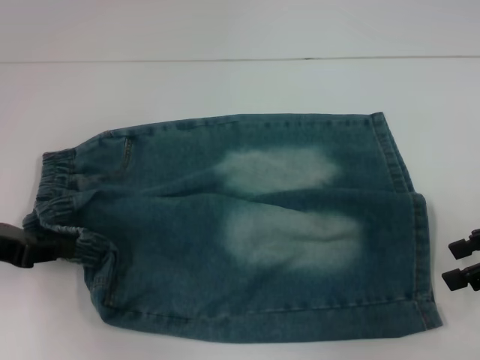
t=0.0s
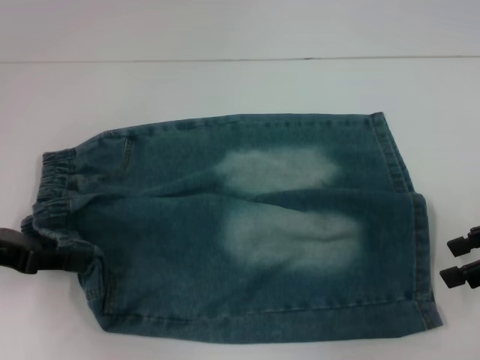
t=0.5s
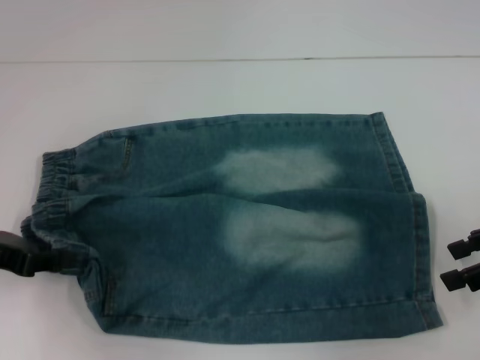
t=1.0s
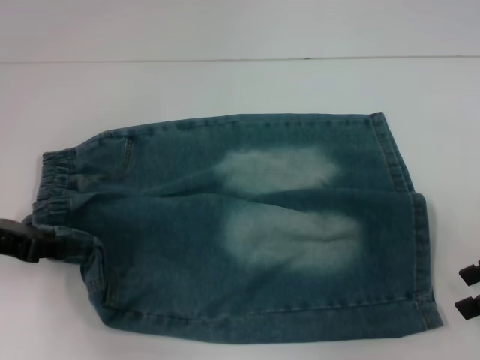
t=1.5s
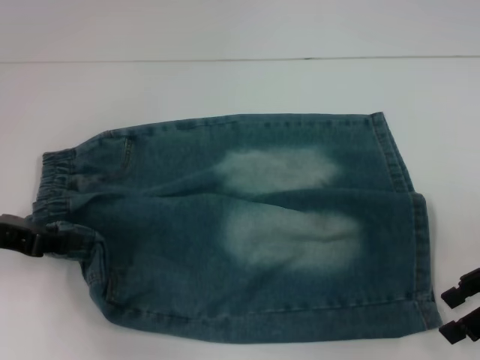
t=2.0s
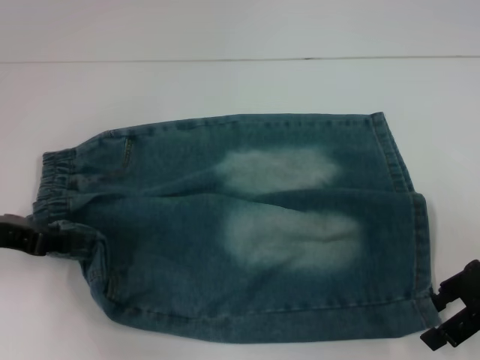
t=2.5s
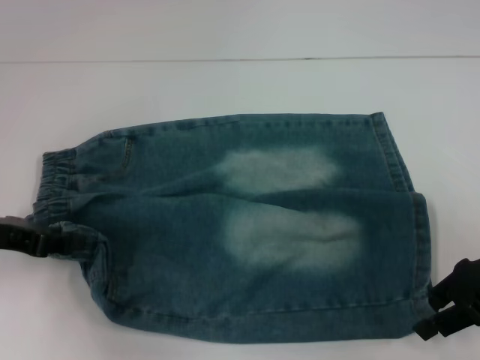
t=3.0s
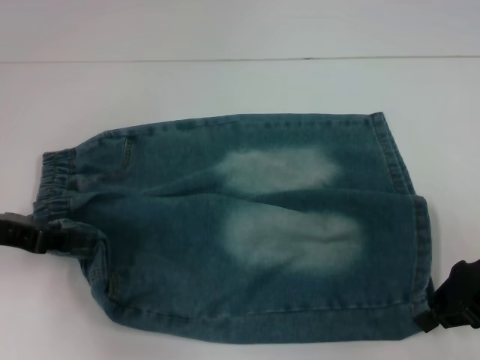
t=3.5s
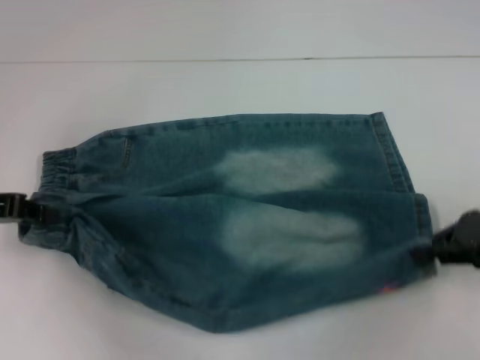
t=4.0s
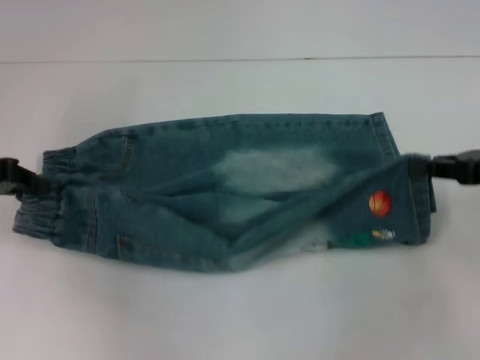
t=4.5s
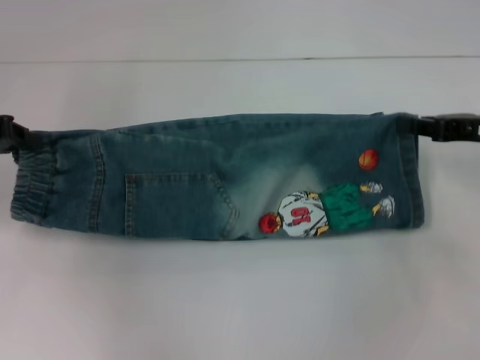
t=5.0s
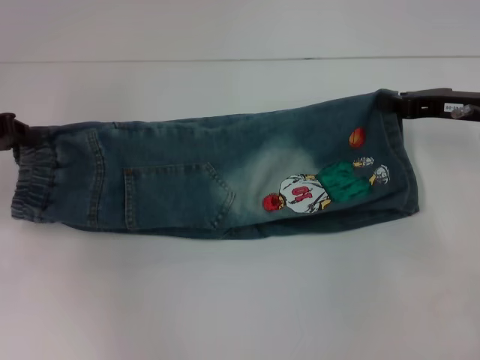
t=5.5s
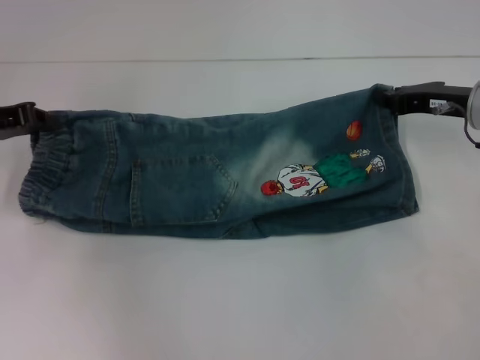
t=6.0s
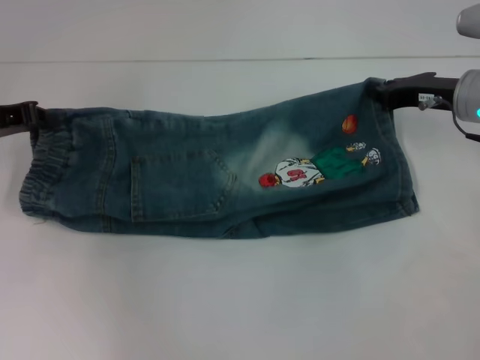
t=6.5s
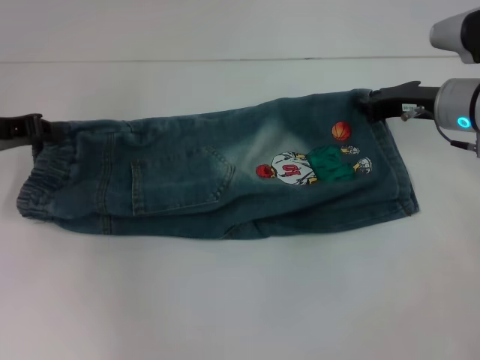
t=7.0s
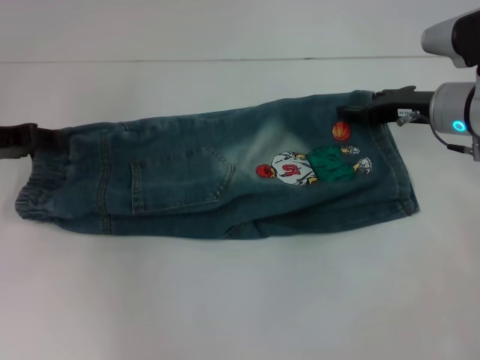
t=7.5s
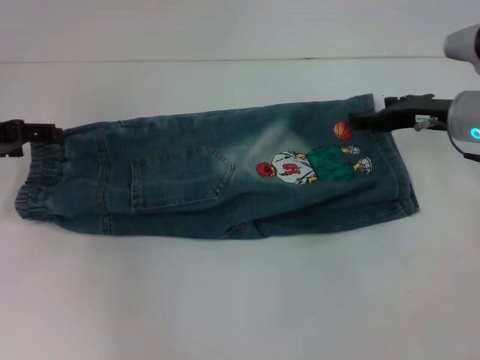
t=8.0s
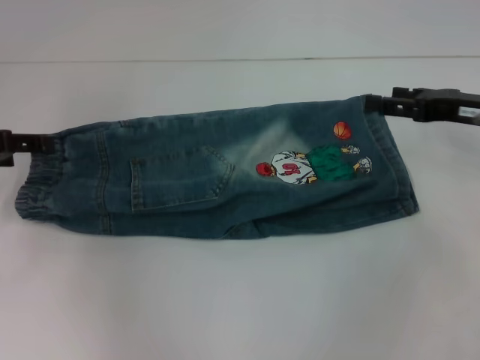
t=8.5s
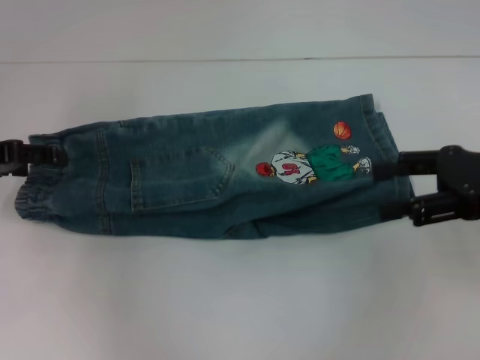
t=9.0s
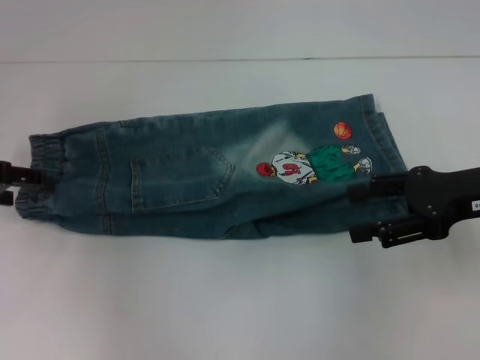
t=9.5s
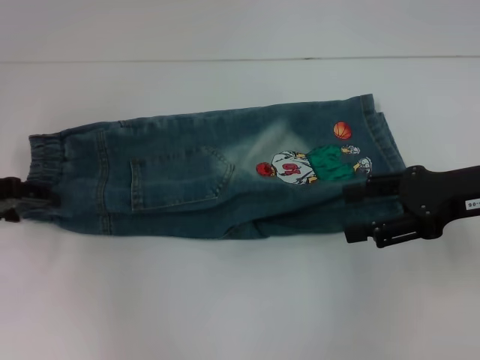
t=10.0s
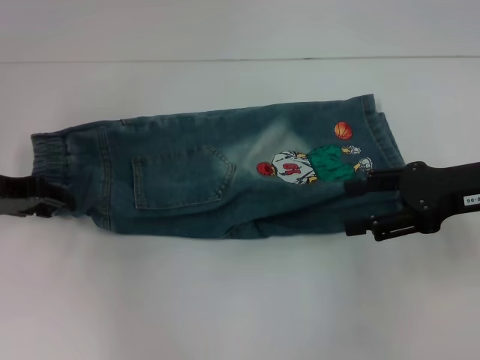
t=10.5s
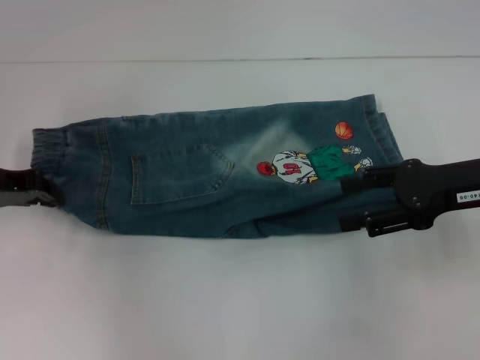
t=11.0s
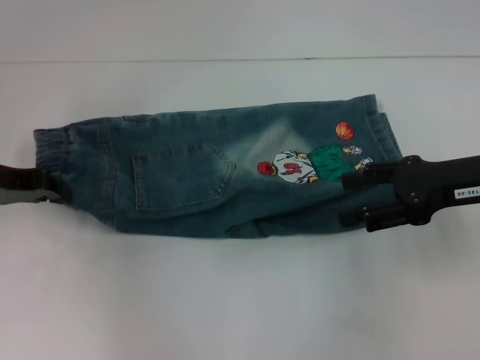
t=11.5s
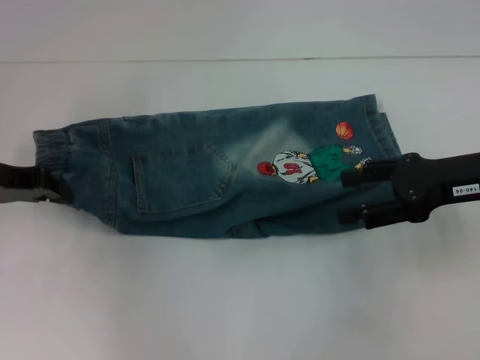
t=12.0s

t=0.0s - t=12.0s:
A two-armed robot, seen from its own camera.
Step, t=0.0s - t=3.5s: Grab the lower right pant leg with your right hand.
Step, t=4.0s - t=8.0s: Fold upward with your right hand.
t=0.0s - t=2.0s: There are only small adjustments of the grippers.
t=2.0s - t=4.0s: The right gripper closes.
t=4.0s - t=6.0s: The right gripper goes roughly 10 cm forward. Meanwhile the left gripper goes approximately 5 cm forward.
t=6.0s - t=8.0s: The right gripper opens up. Meanwhile the left gripper opens up.
t=8.0s - t=10.0s: The right gripper heads backward, covering approximately 10 cm.
t=10.0s - t=12.0s: The left gripper closes its fingers.

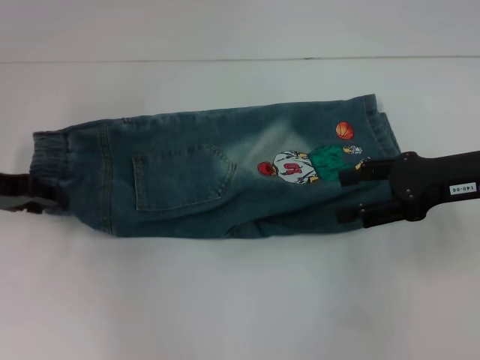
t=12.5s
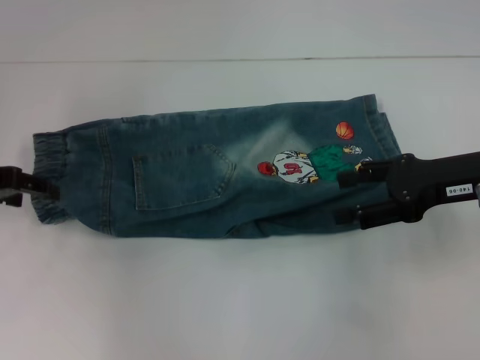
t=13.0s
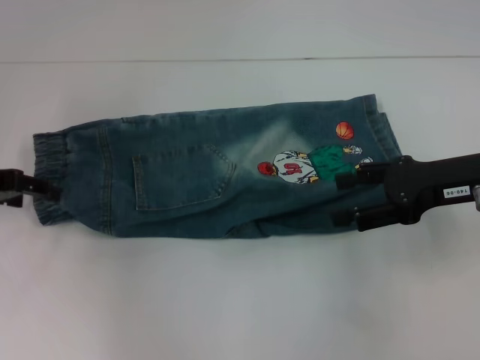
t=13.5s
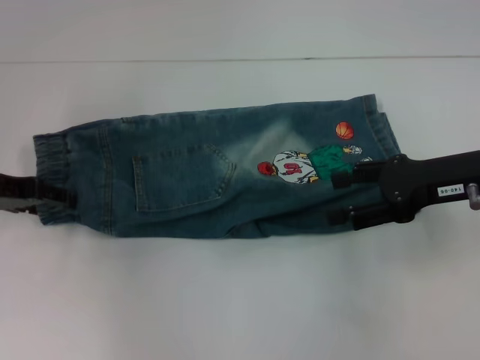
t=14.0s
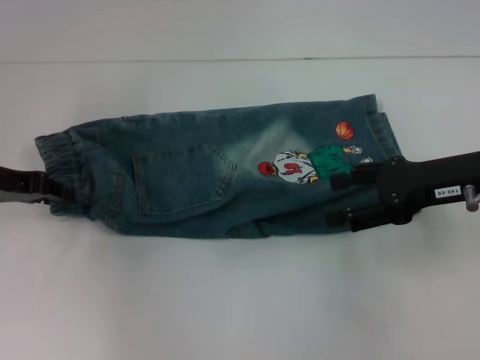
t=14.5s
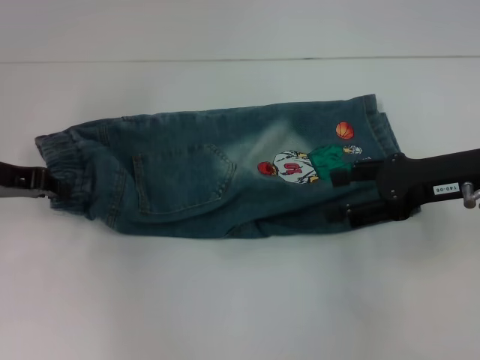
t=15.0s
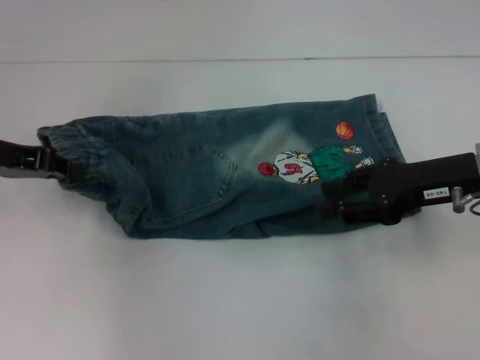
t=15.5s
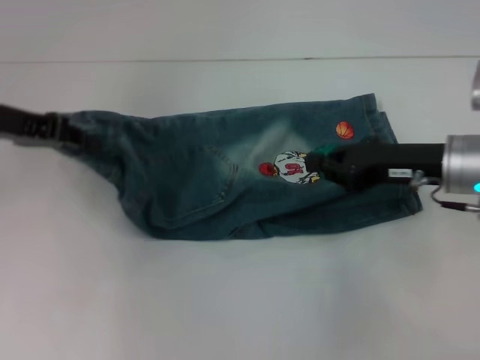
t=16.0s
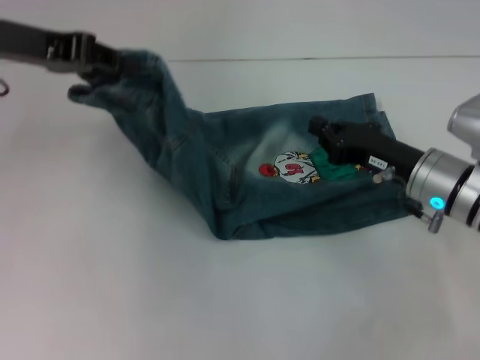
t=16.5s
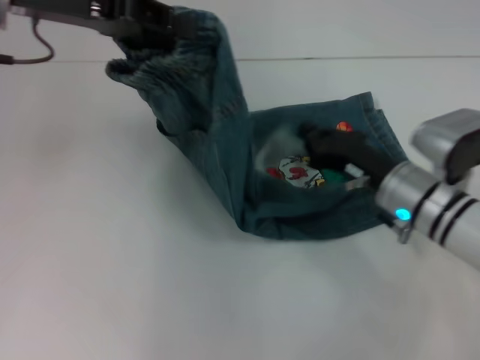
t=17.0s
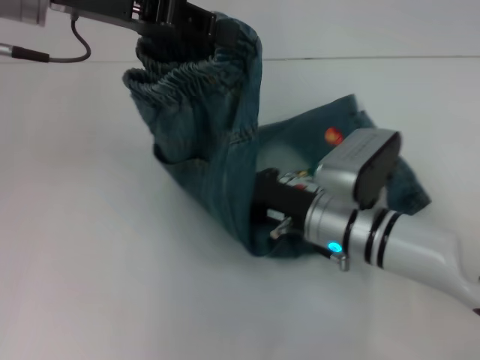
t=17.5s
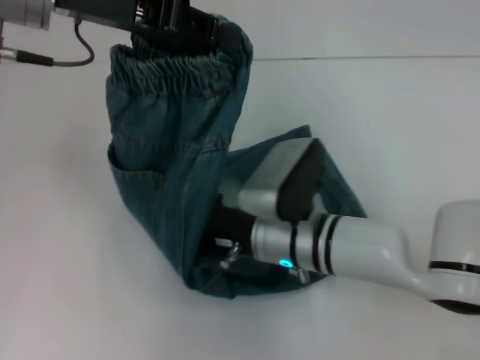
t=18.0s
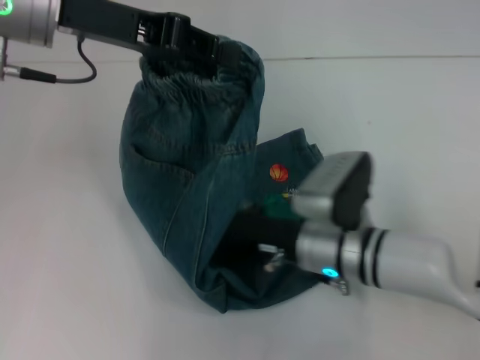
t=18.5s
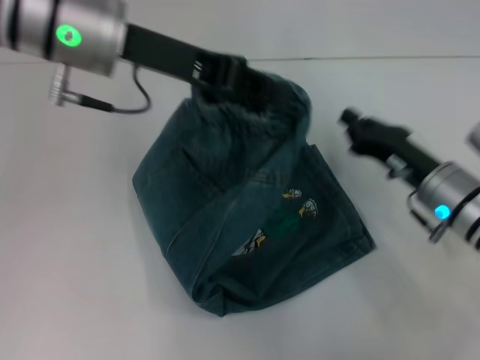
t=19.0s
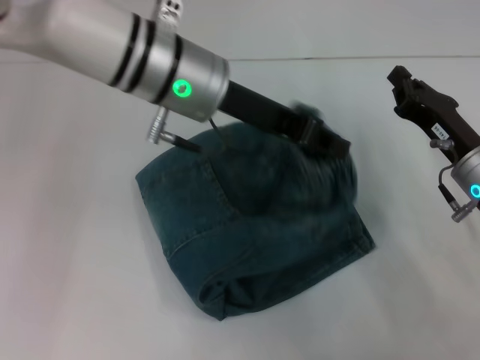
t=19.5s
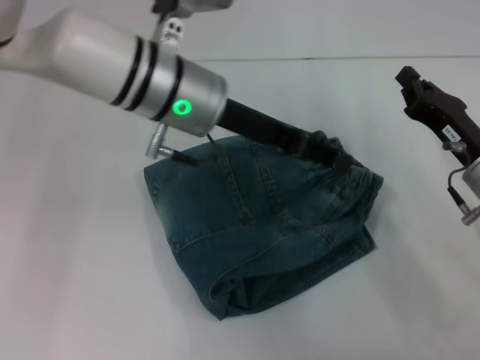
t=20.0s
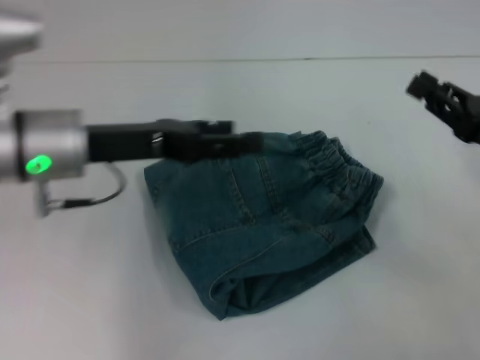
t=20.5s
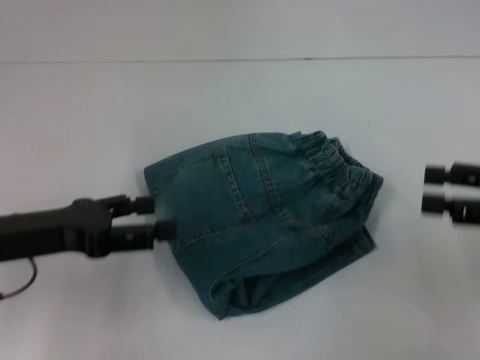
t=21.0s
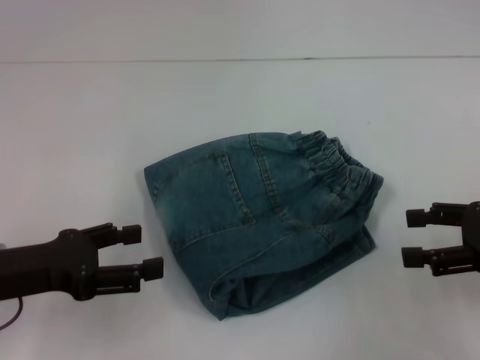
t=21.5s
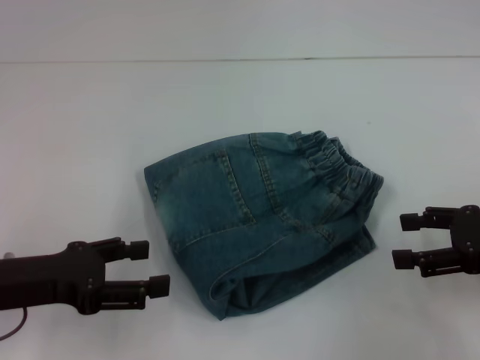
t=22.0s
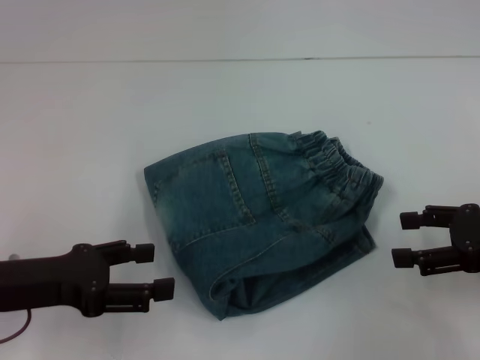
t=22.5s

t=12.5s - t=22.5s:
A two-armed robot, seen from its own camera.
Step, t=12.5s - t=15.0s: Hold the waistband with your left hand.
Step, t=15.5s - t=18.5s: Press the middle of the pants with your right hand.
Step, t=19.0s - t=20.0s: Fold to the right with your left hand.
t=12.5s - t=14.5s: The left gripper opens and closes again.
t=14.5s - t=16.5s: The right gripper travels downward by some 10 cm, and closes up. Meanwhile the left gripper goes about 10 cm upward and to the right, and closes its fingers.
t=16.5s - t=18.5s: The left gripper goes roughly 5 cm to the right, while the right gripper heads to the left, covering some 10 cm.
t=18.5s - t=20.5s: The right gripper goes approximately 20 cm to the right. The left gripper heads downward and backward, covering some 10 cm, travels to the right and back again, some 10 cm each way, and opens.
t=20.5s - t=22.5s: The right gripper opens up; the left gripper is displaced backward, to the left and downward by approximately 15 cm.

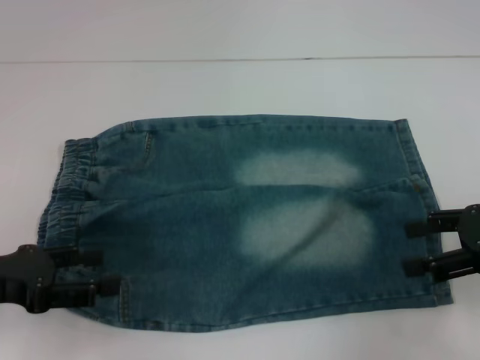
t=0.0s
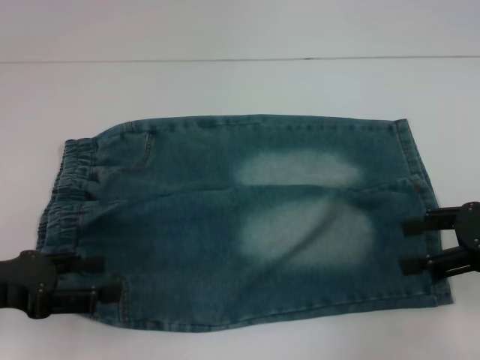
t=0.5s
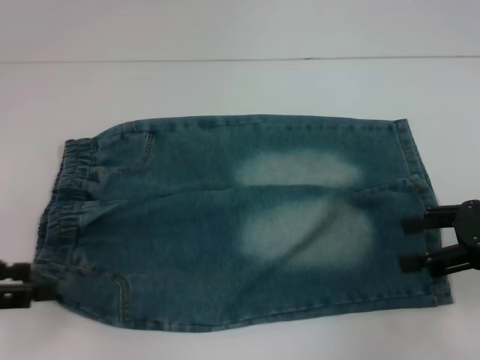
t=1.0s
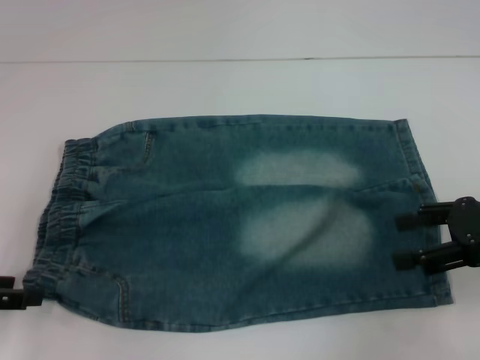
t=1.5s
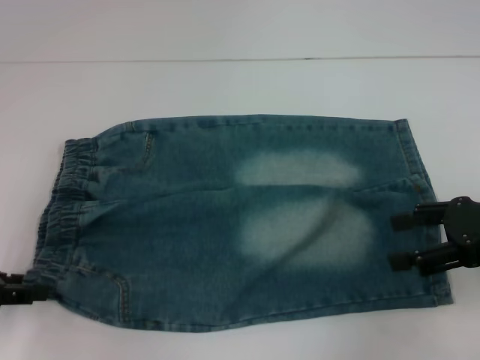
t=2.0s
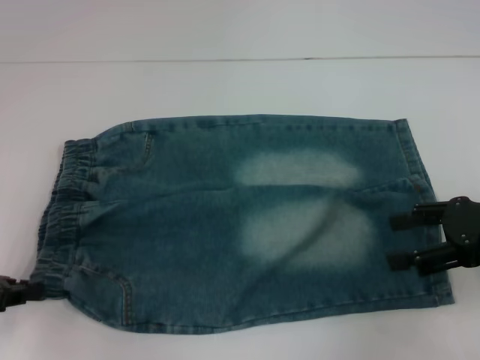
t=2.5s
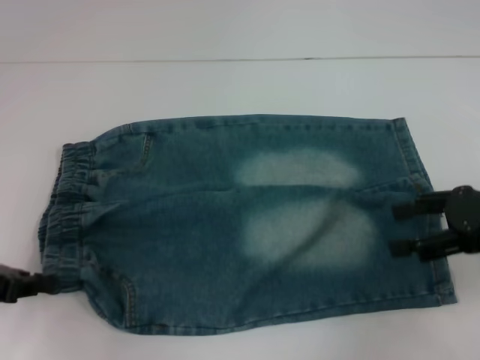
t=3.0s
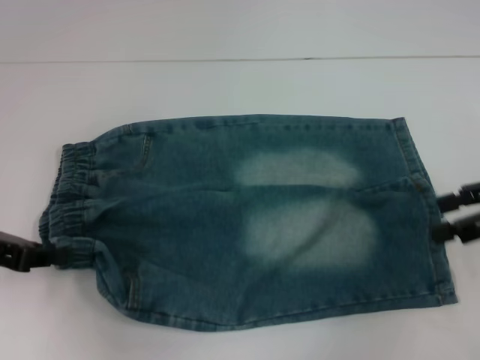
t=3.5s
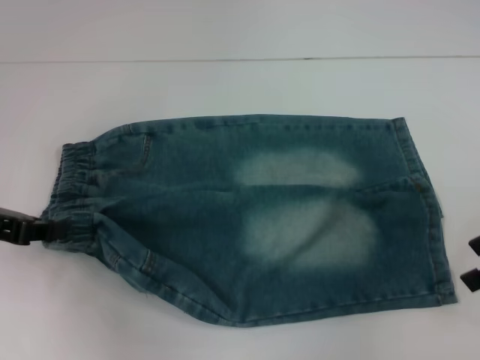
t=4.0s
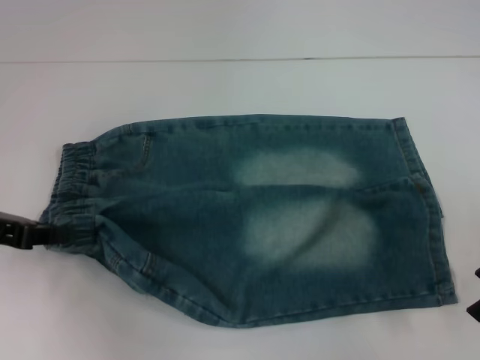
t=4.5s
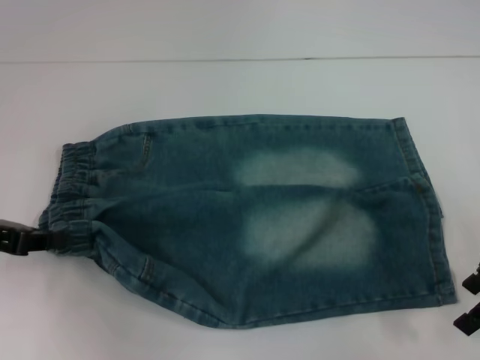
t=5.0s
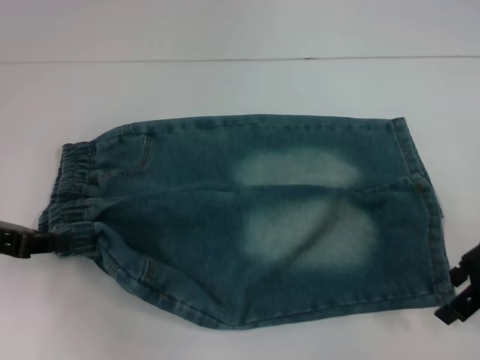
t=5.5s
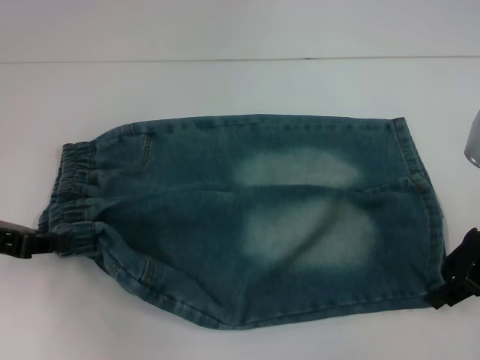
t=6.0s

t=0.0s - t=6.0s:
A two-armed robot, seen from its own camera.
Step, t=0.0s - t=2.5s: Hold the lower left waistband with your left hand.
t=2.0s - t=4.0s: The right gripper changes place by some 5 cm. The left gripper moves some 5 cm, and closes.
t=4.0s - t=6.0s: The right gripper heads to the left, covering some 5 cm, and closes up.
